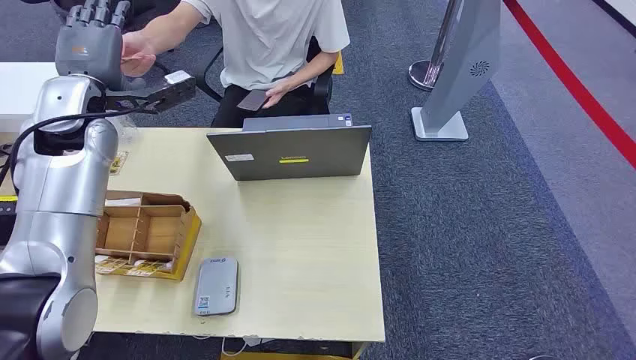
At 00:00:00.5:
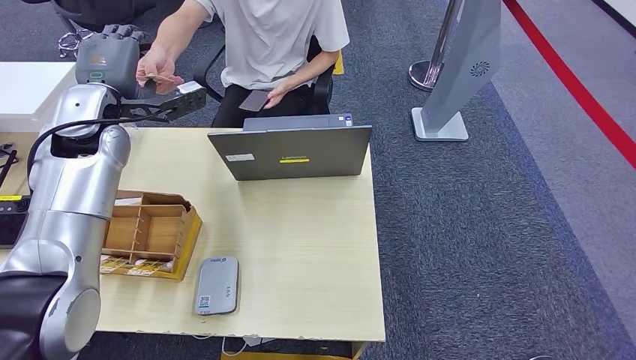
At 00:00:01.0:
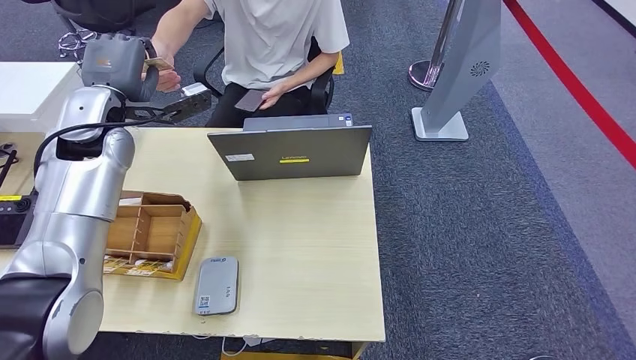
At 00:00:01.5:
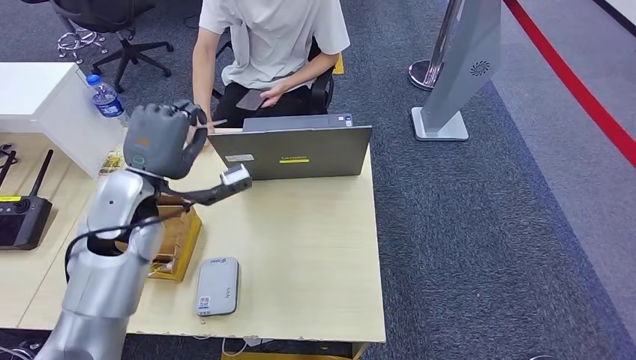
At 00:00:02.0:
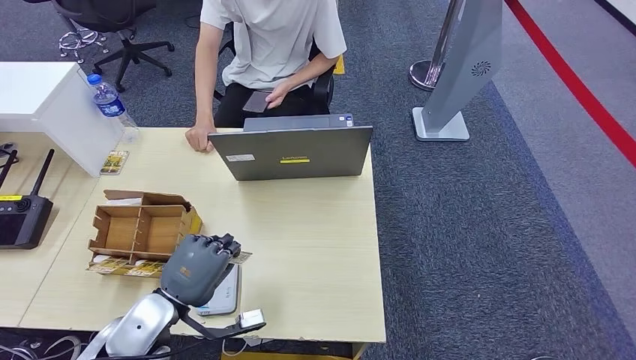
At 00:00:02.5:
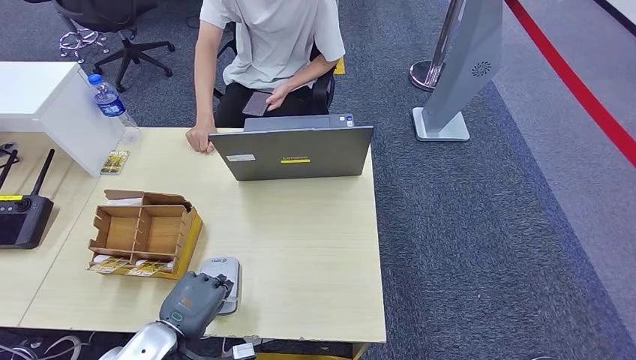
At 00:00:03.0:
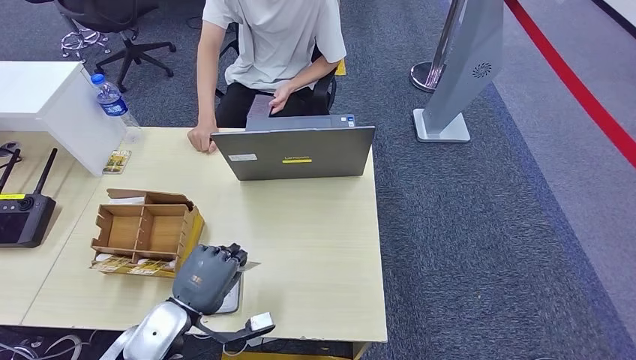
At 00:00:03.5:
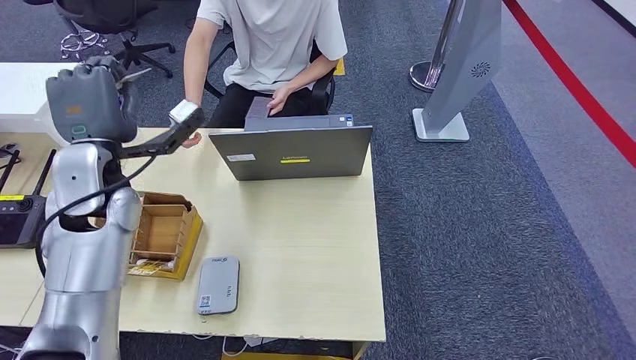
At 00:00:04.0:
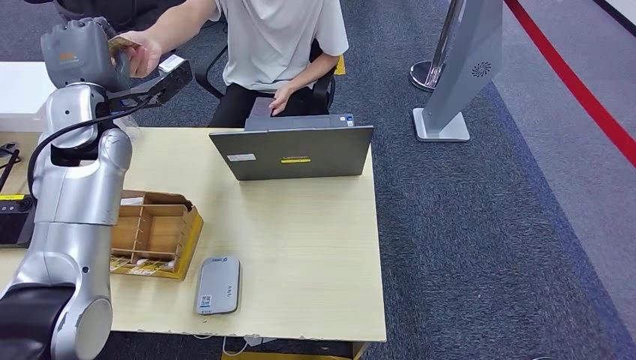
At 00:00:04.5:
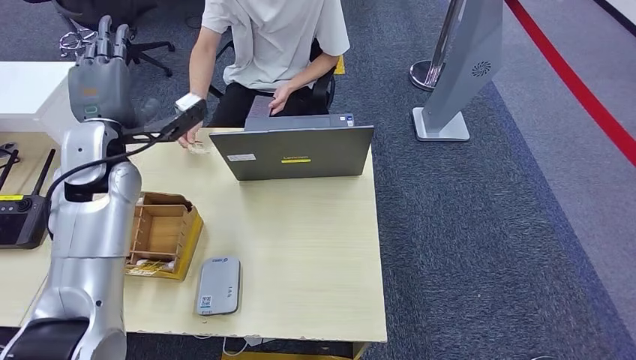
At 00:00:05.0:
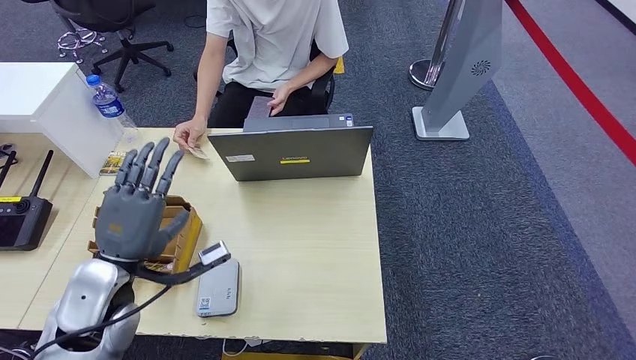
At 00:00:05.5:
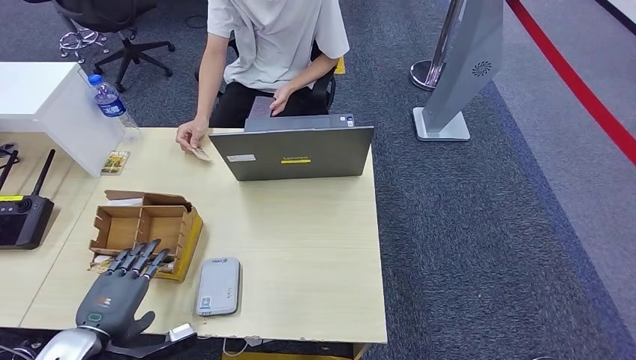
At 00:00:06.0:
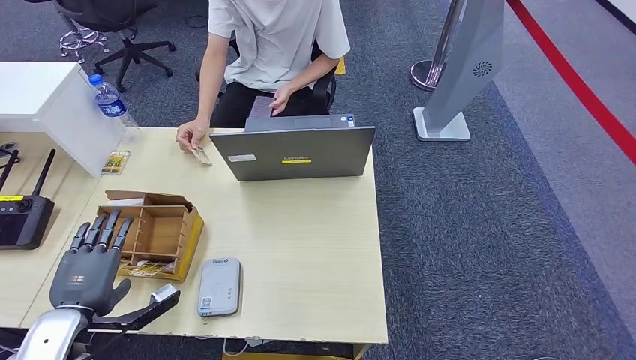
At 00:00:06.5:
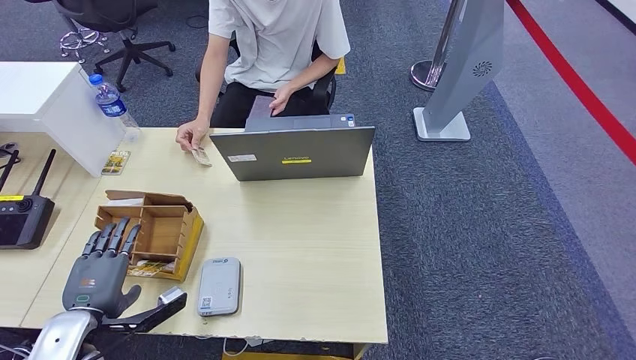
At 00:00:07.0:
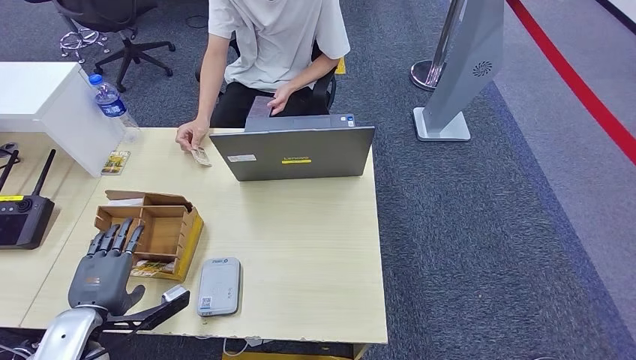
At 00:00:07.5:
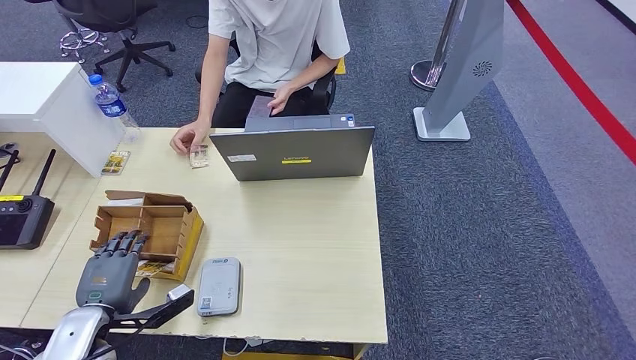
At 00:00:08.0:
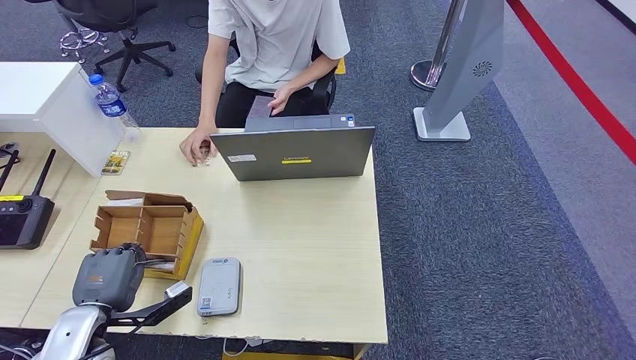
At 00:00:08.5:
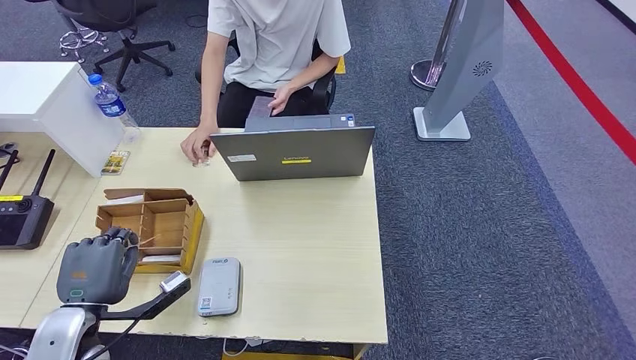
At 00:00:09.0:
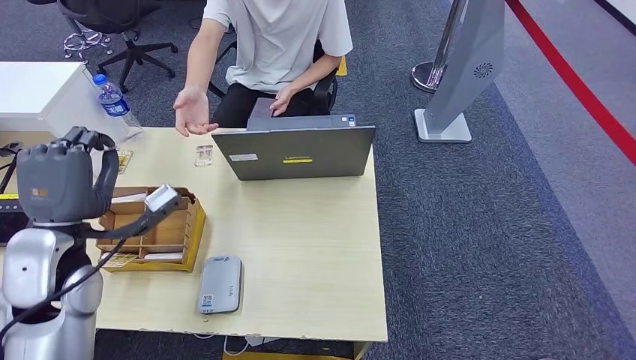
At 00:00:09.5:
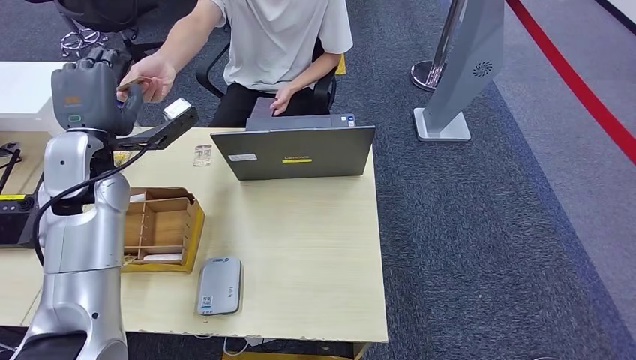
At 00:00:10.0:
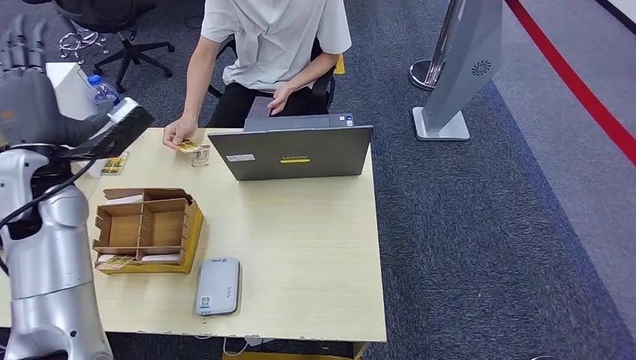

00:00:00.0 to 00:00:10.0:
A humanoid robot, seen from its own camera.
Step, 00:00:00.0 to 00:00:01.0: Take the ID card from the person's hand.
Step, 00:00:02.0 to 00:00:02.5: Place the ID card on the card reader.
Step, 00:00:03.5 to 00:00:05.0: Hand the ID card to the person.
Step, 00:00:06.5 to 00:00:08.5: Pick up the room key from the key card box.
Step, 00:00:09.5 to 00:00:10.0: Hand the room key to the person.
00:00:06.0 to 00:00:08.0: There are only small adjustments of the hands.
